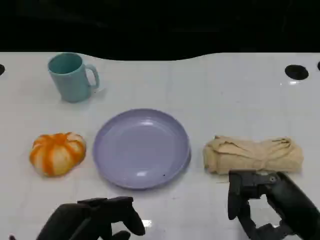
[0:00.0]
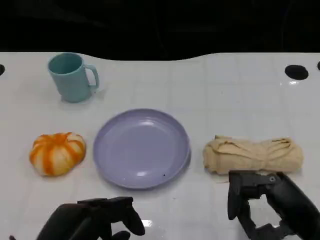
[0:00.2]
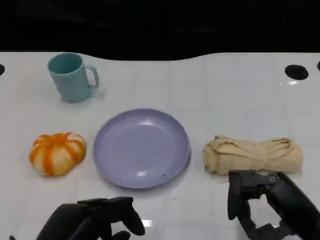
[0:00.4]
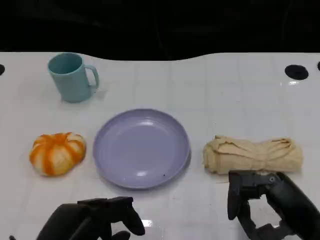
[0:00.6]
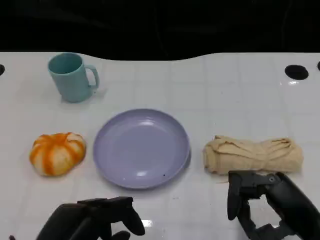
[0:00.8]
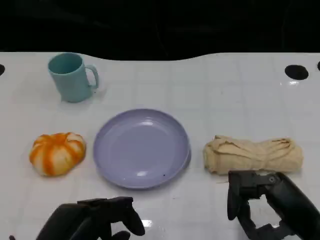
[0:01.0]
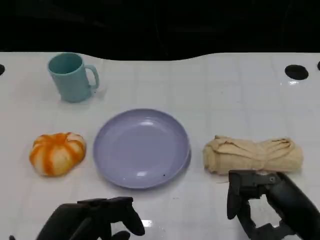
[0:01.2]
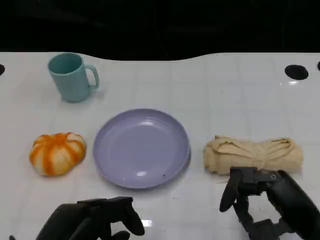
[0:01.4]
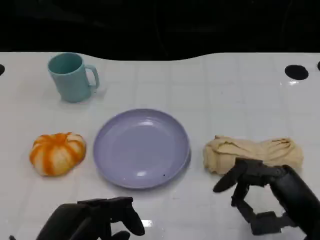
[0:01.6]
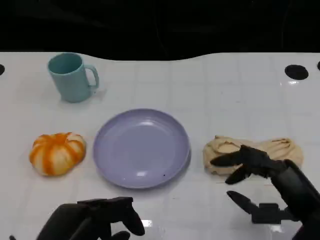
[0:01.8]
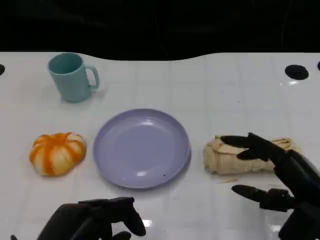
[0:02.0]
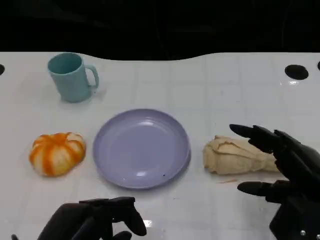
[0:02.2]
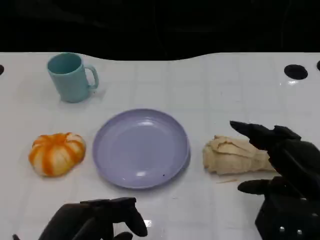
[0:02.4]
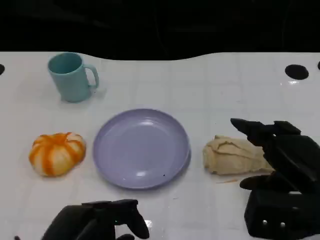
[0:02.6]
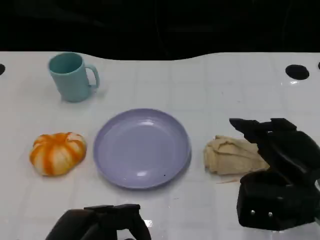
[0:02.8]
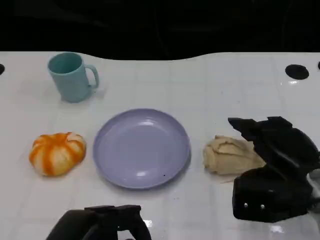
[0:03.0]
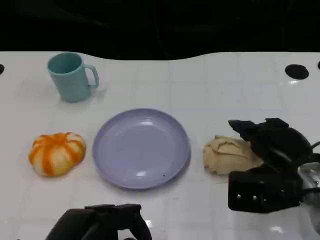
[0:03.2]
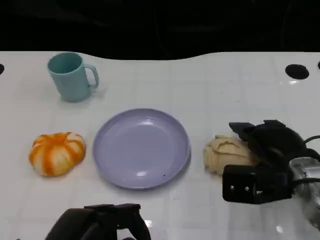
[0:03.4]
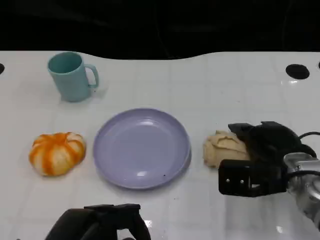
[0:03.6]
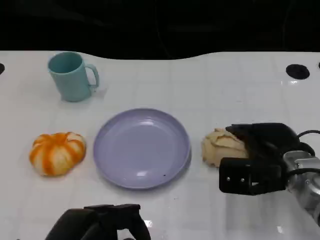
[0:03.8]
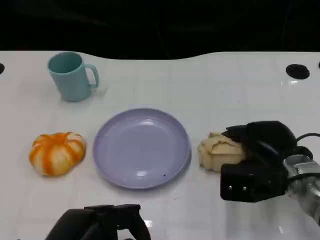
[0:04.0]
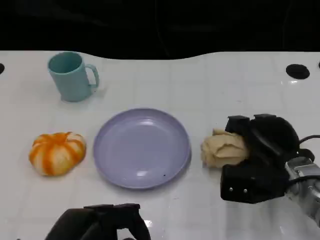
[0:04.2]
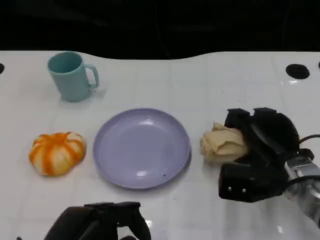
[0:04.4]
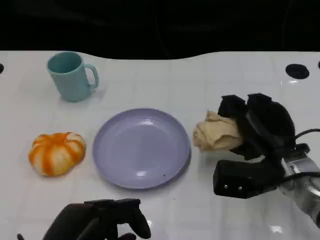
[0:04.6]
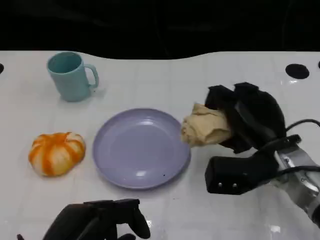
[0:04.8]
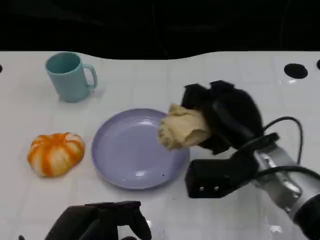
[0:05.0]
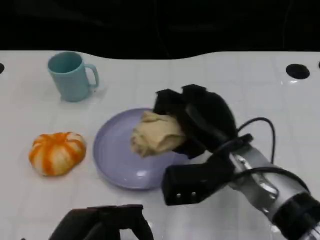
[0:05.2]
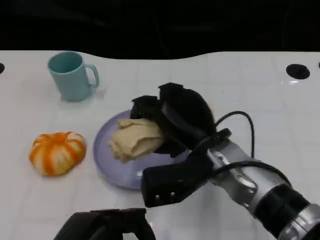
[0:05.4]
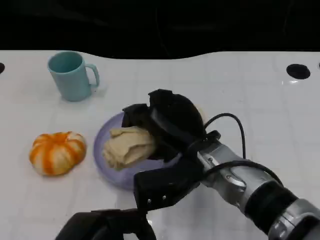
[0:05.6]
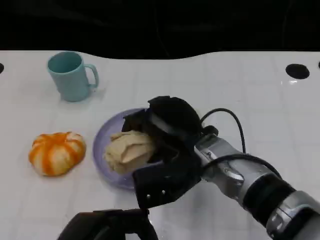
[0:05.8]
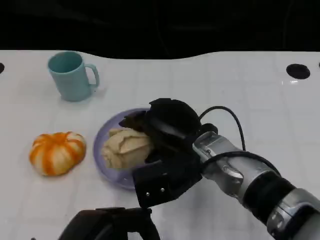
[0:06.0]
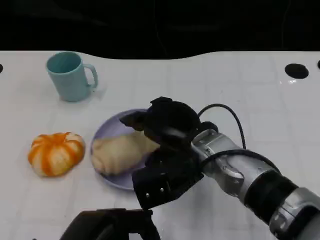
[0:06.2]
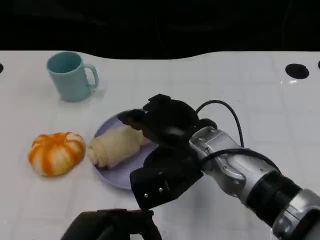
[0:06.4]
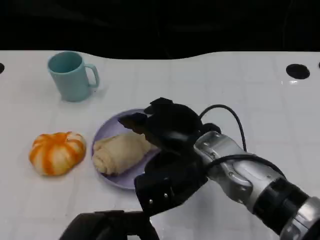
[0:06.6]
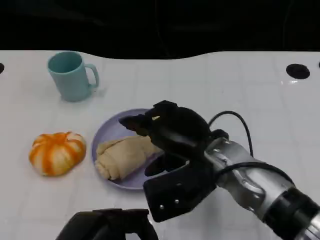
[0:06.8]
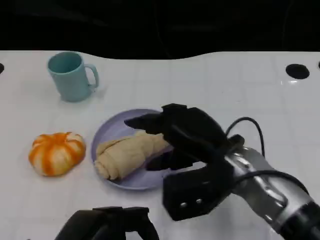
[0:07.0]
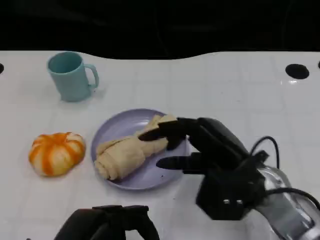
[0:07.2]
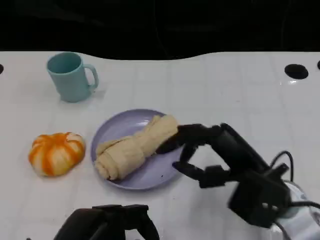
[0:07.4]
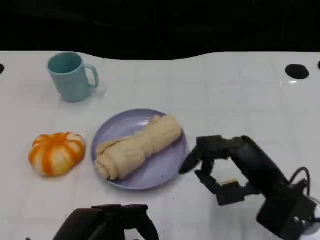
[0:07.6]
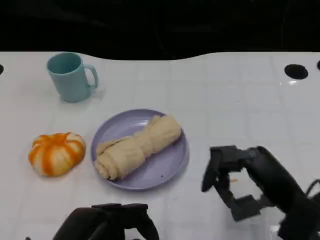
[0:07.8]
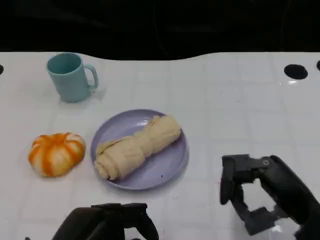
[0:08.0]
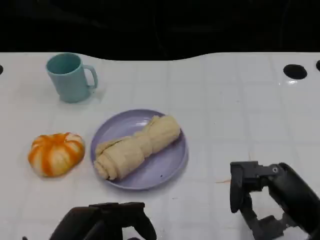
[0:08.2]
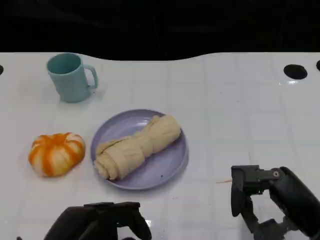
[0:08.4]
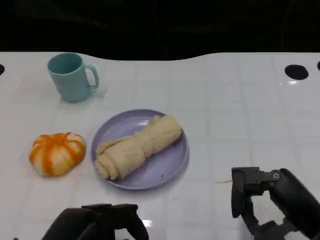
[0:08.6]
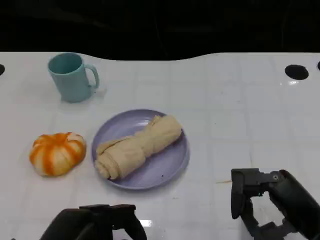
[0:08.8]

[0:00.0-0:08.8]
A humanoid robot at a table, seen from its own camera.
Task of the whole recording: Grasp the towel on the left side of the plate with the left hand and place it into the plate.
0:00.0 to 0:01.4: Both hands stay put.
0:01.4 to 0:03.0: The right hand goes approximately 5 cm forward.
0:03.0 to 0:04.4: The right hand moves some 5 cm.
0:04.4 to 0:05.8: The right hand heads to the left, covering about 15 cm.
0:05.8 to 0:07.4: The right hand is displaced to the right and backward by some 10 cm.
0:07.4 to 0:08.8: The right hand moves to the right and backward, some 10 cm.

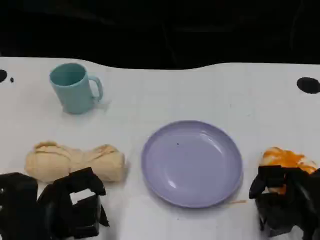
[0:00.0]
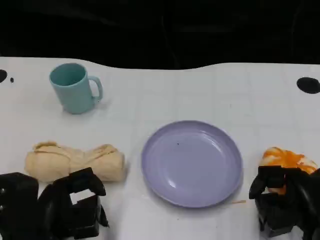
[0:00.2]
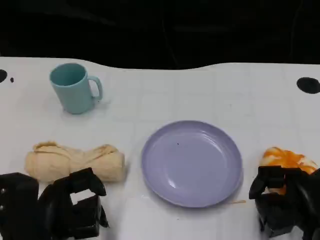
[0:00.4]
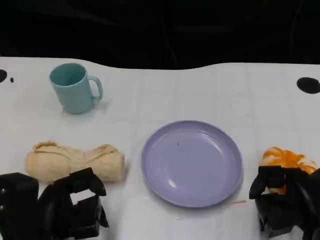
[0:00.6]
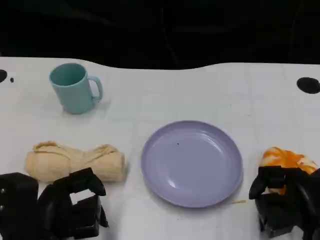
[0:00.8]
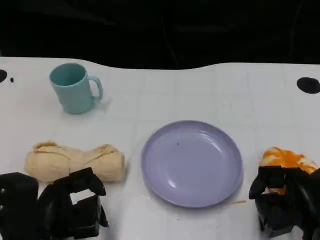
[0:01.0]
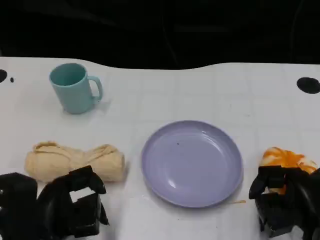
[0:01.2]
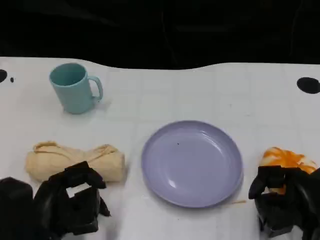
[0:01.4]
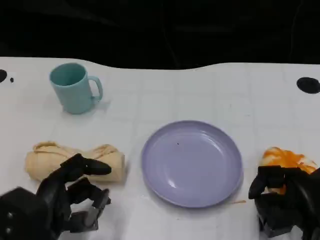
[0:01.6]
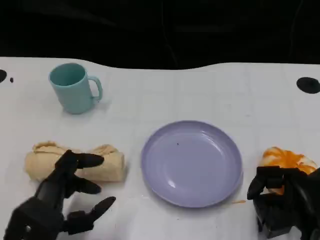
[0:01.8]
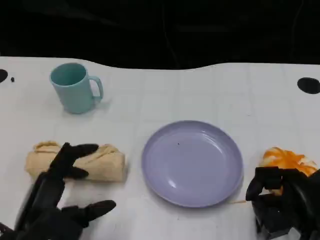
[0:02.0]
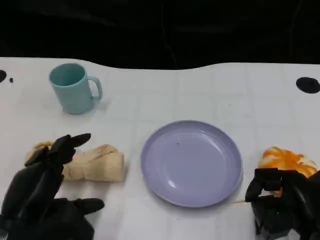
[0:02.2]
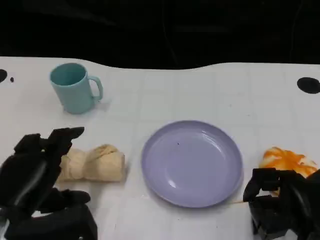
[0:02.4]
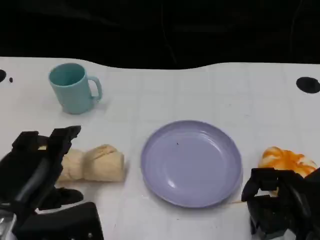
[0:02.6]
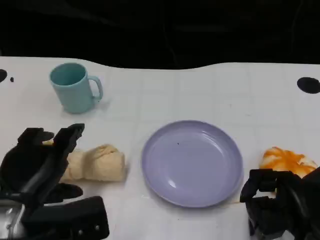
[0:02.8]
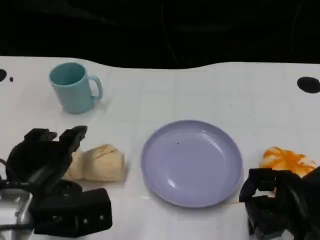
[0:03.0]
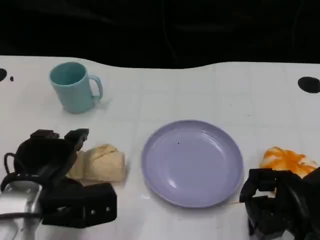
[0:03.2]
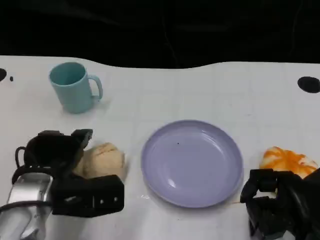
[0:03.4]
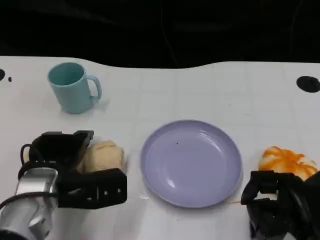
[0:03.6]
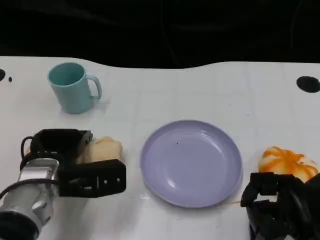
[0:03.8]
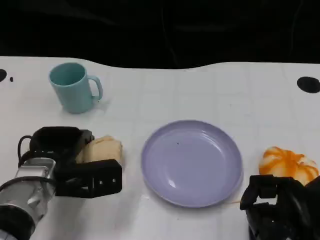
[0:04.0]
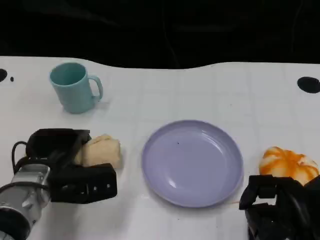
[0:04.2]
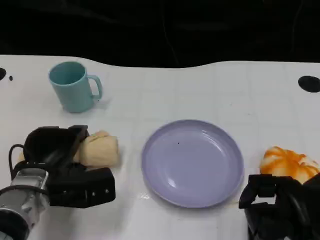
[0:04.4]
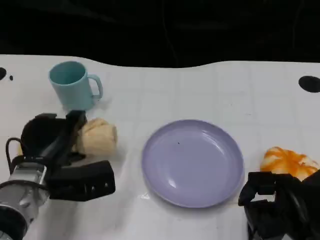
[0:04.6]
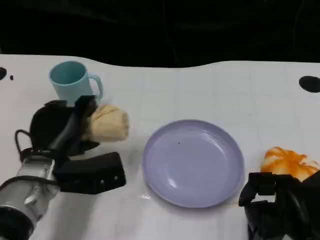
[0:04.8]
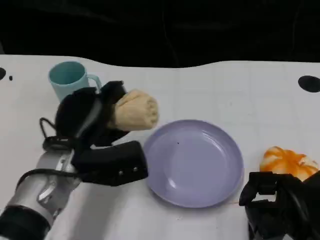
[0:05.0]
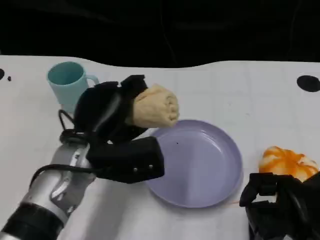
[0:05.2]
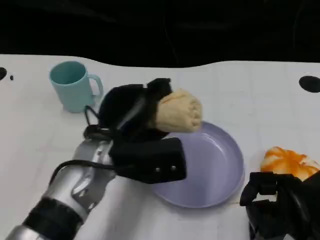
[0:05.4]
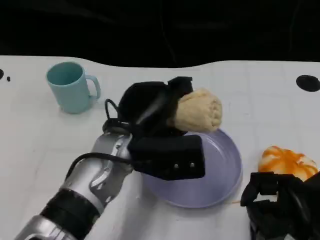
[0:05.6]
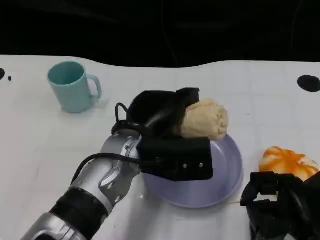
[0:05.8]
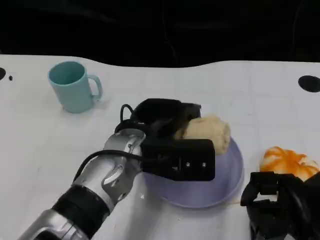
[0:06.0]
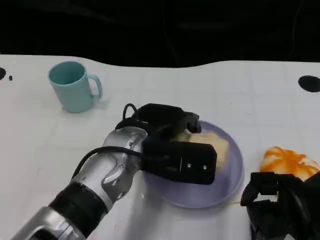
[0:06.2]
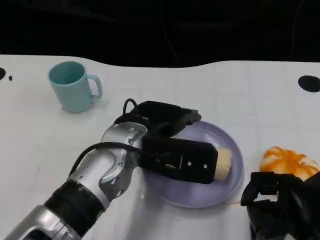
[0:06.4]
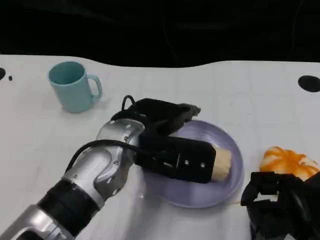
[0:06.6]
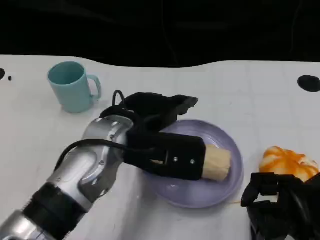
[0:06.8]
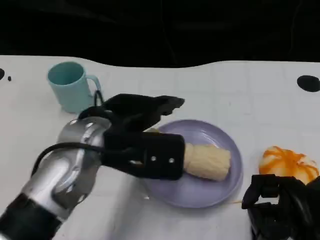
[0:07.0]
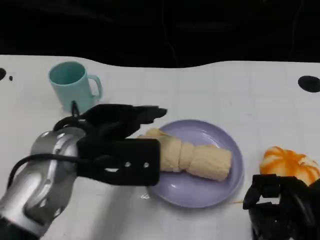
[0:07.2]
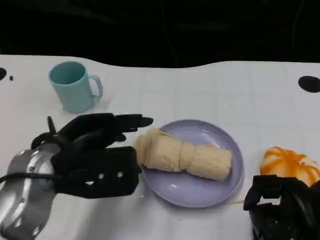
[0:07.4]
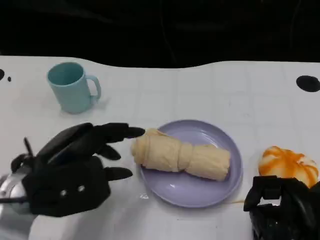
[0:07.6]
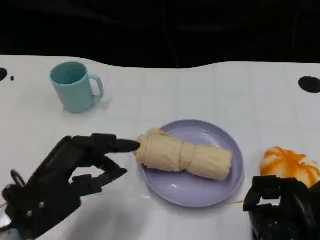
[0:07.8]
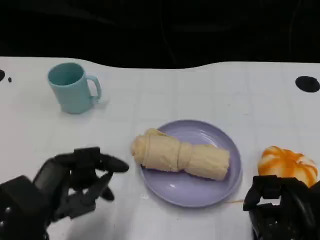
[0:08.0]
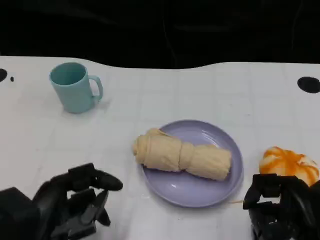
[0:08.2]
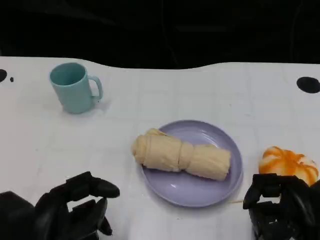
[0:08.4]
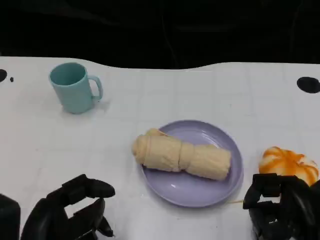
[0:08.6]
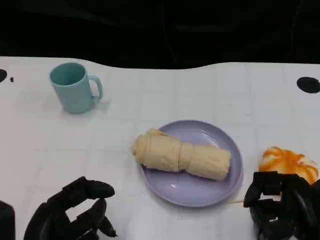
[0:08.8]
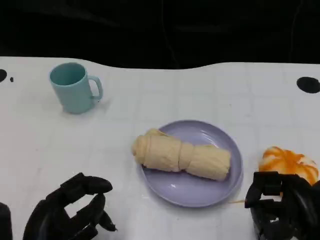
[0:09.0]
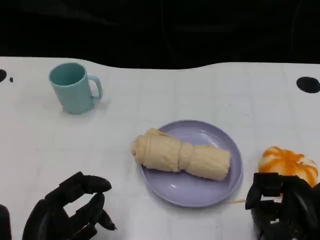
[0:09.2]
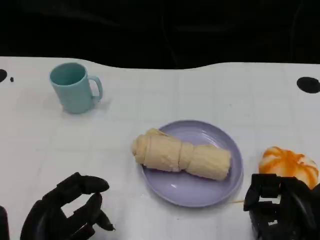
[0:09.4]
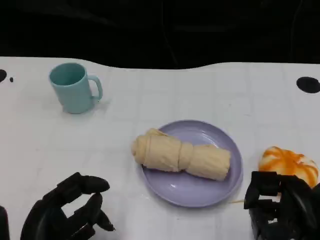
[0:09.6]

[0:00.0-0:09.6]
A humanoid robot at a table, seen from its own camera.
Task of the whole recording: Grasp the towel on the left side of the plate with the left hand and place it into the plate.
0:01.6 to 0:03.2: The left hand moves forward, about 5 cm.
0:03.2 to 0:04.8: The left hand moves approximately 5 cm.
0:04.8 to 0:06.4: The left hand shifts about 15 cm to the right and upward.
0:06.4 to 0:08.0: The left hand moves to the left and backward, some 20 cm.
